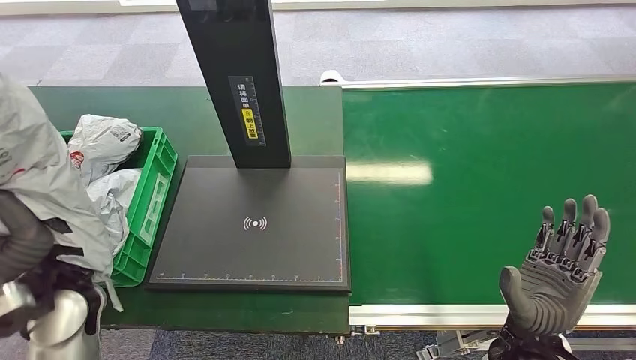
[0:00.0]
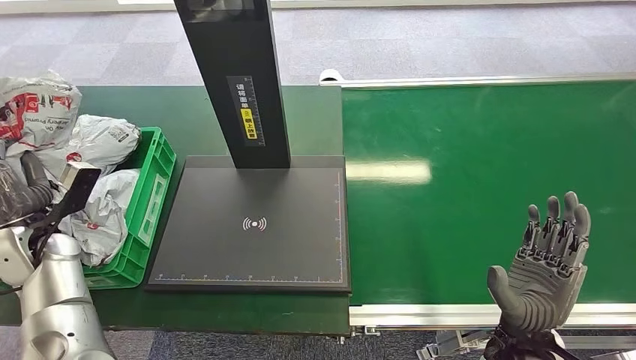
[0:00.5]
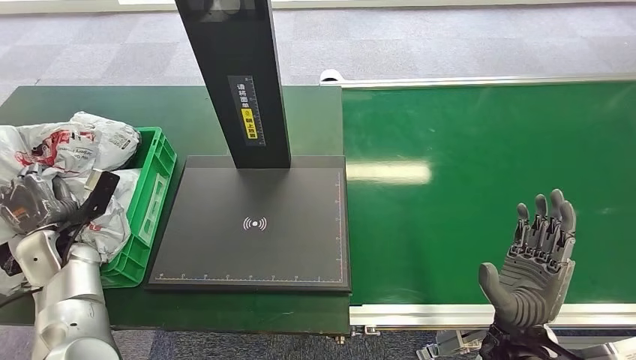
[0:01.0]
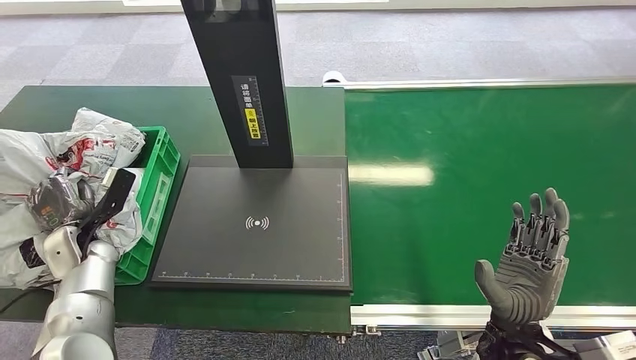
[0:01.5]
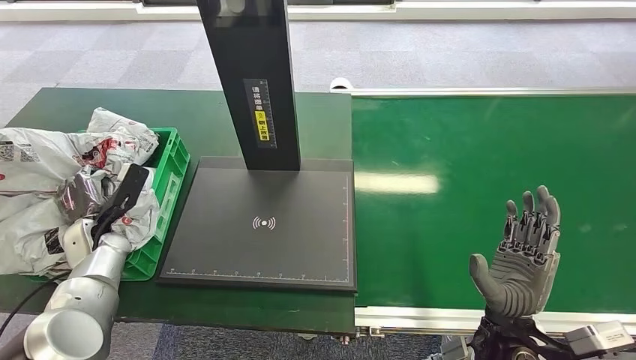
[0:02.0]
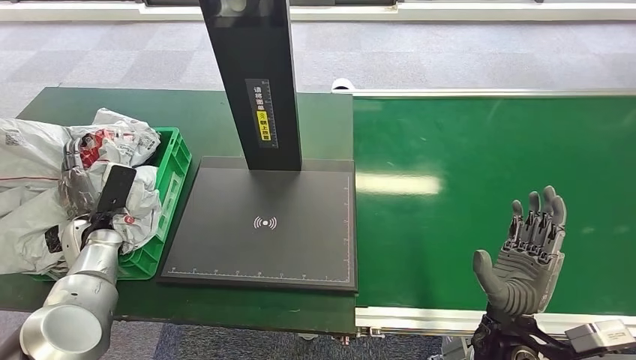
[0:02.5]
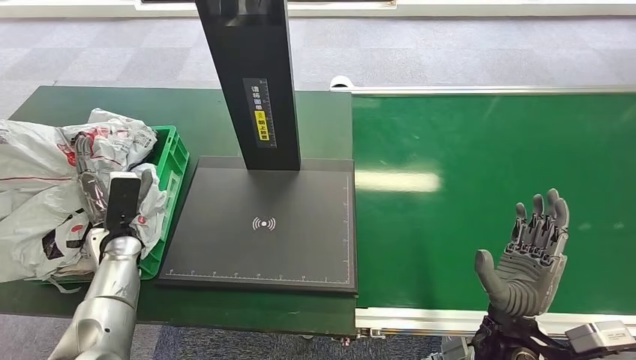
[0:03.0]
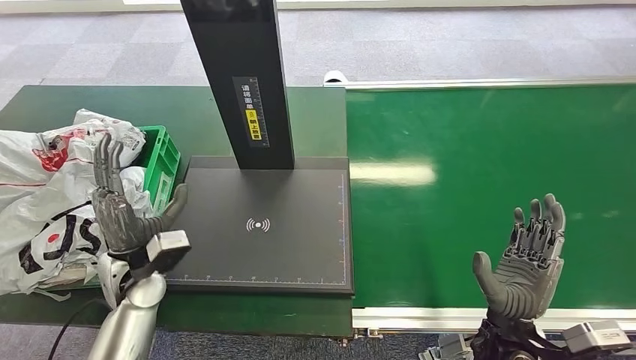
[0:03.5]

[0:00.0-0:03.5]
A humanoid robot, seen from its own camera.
Step, 0:00.0 to 0:03.5: Place the package into the parcel locker.
